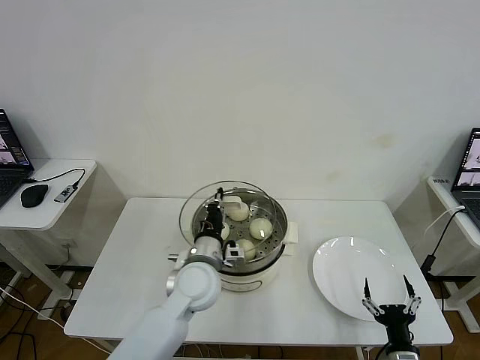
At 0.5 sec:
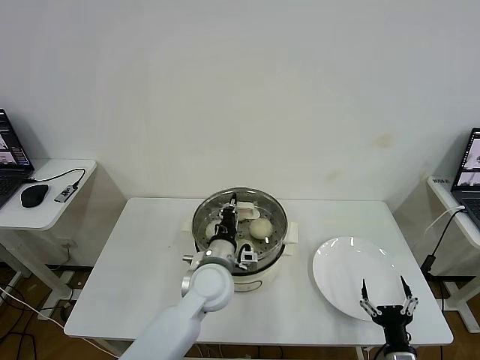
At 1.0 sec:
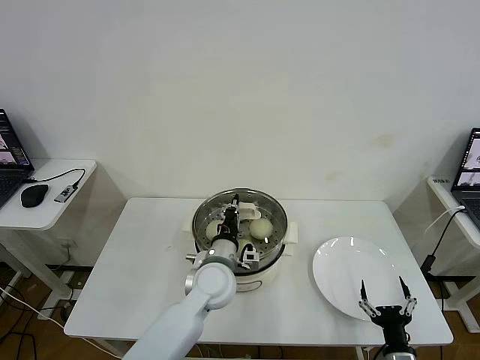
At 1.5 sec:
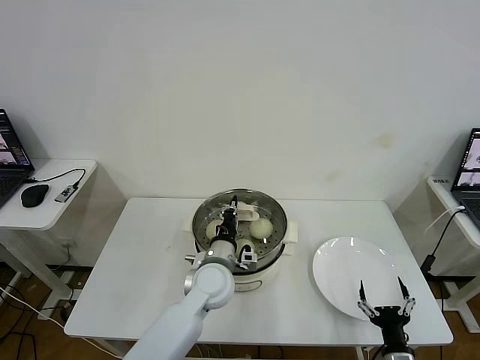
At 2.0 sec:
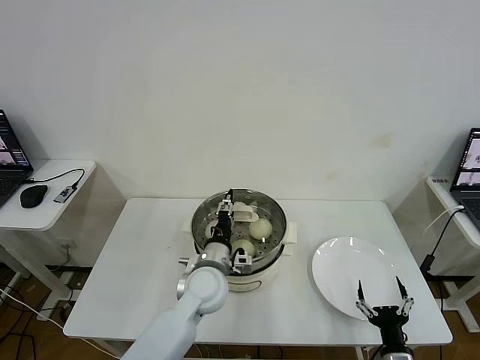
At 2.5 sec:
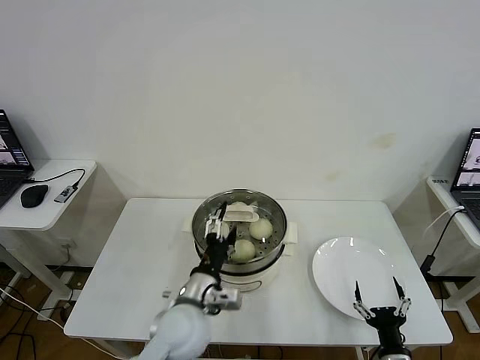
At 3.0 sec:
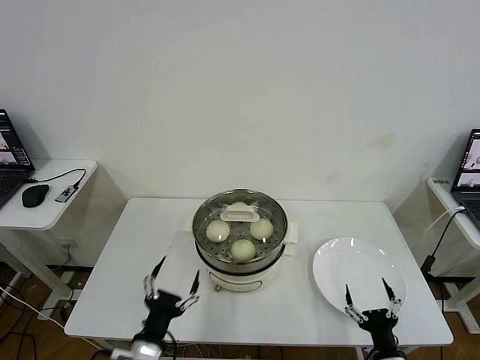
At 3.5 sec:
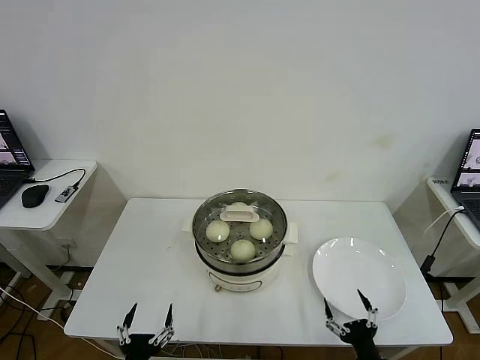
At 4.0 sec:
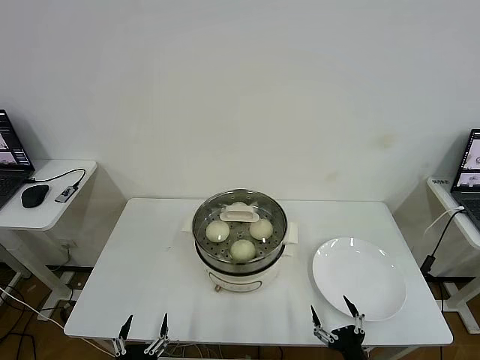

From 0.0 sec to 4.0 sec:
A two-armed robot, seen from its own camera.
Task of the whole recording: take steamed baozi put them in steamer then cover it.
Step, from 0.0 sec to 2.5 sec: Place the pot lid on the steamer with left gripper.
From 0.0 sec to 2.0 sec: The left gripper opens.
From 2.0 sec to 4.0 sec: The left gripper travels backward and to the left by approximately 35 cm, and opens its fingers. Meanwhile the right gripper shifts by approximately 5 cm.
